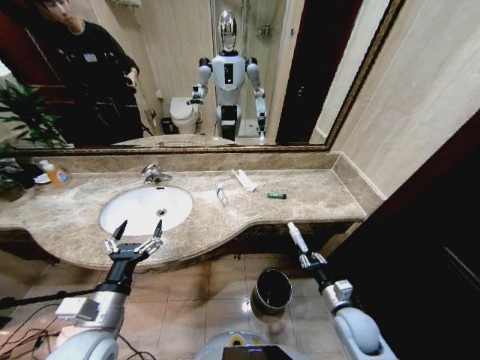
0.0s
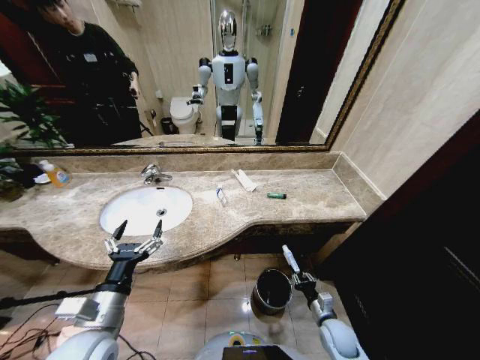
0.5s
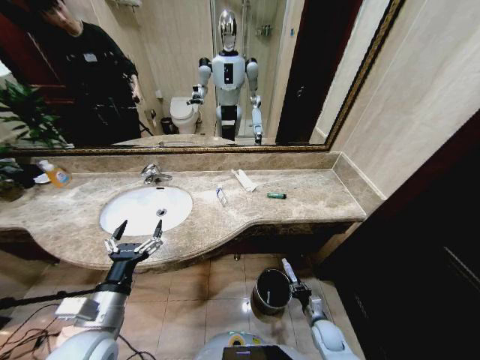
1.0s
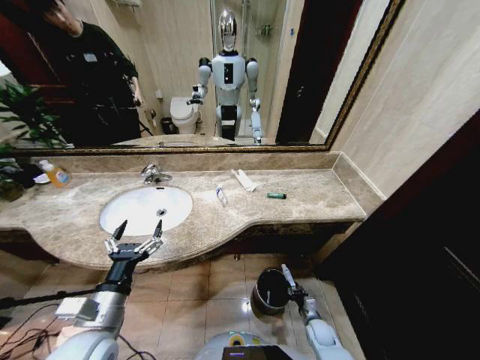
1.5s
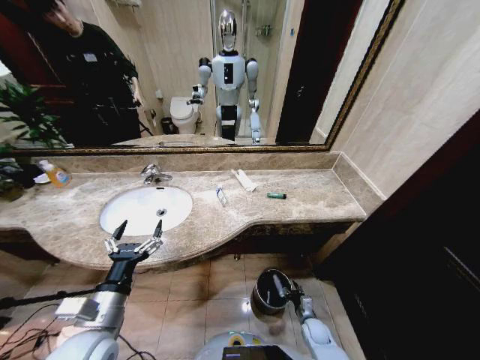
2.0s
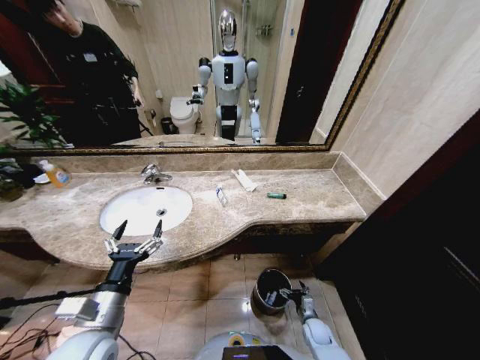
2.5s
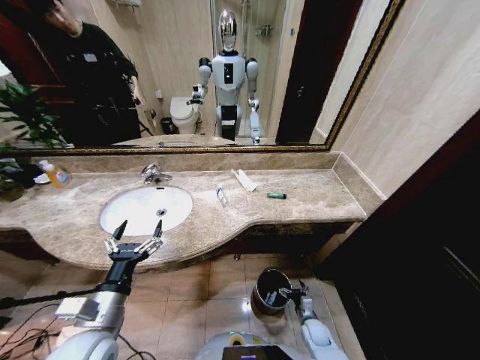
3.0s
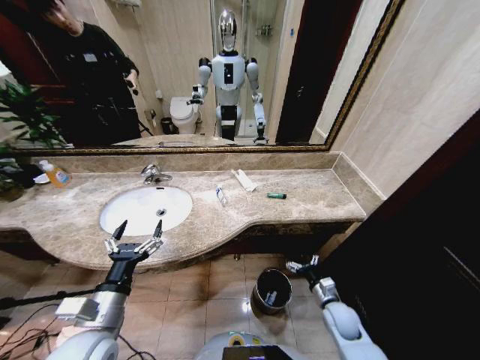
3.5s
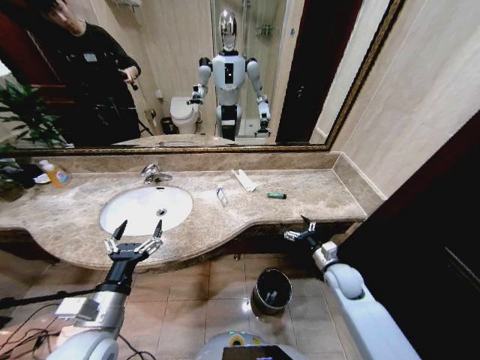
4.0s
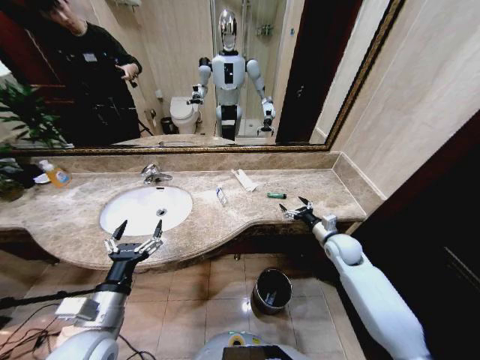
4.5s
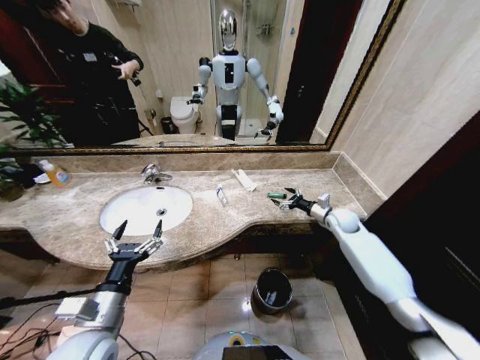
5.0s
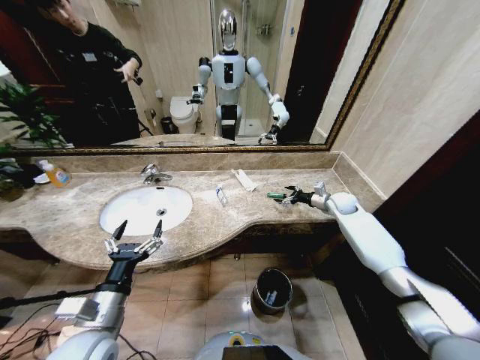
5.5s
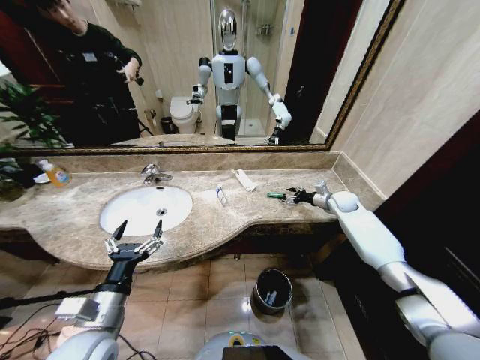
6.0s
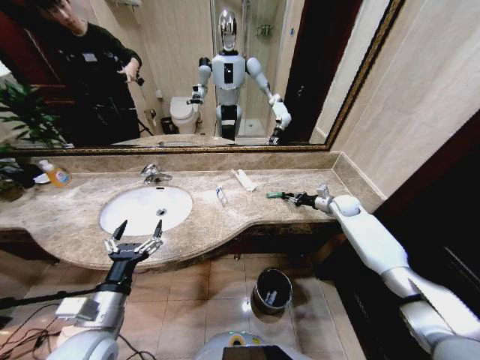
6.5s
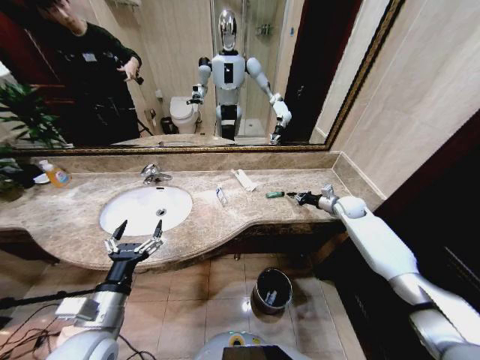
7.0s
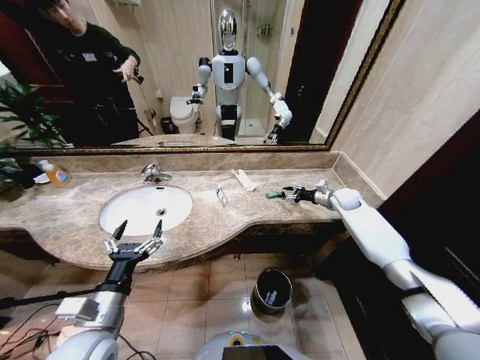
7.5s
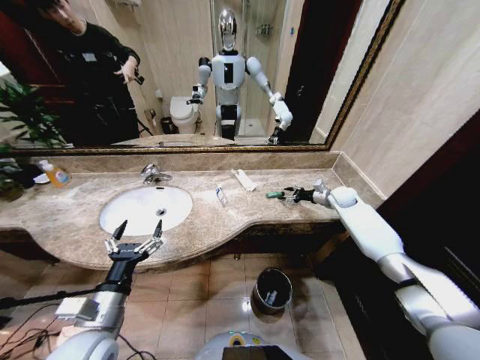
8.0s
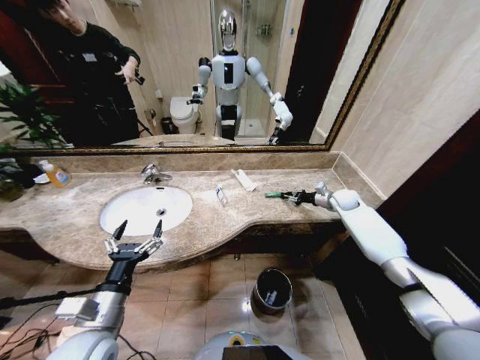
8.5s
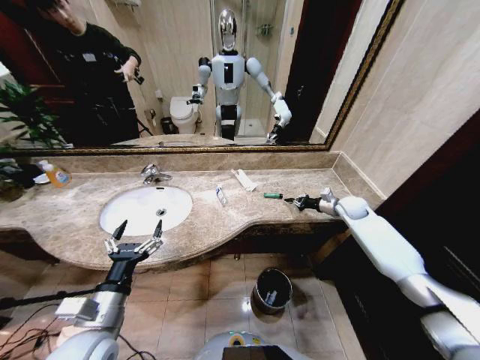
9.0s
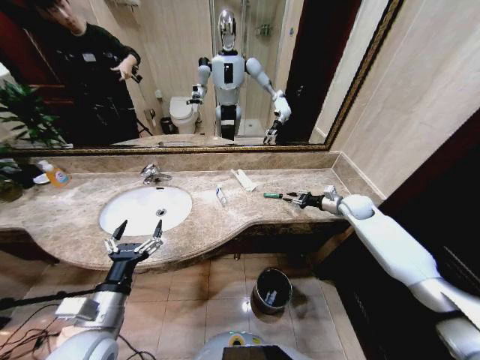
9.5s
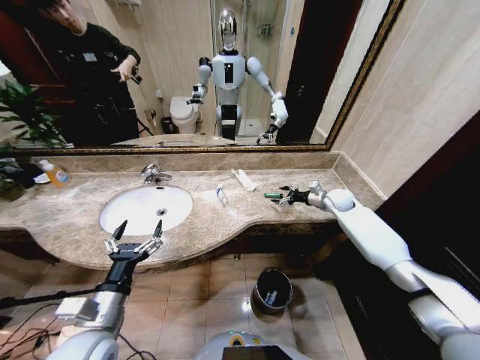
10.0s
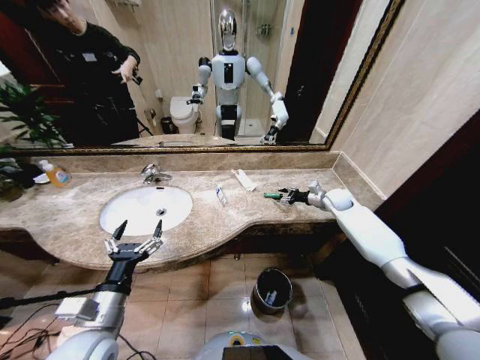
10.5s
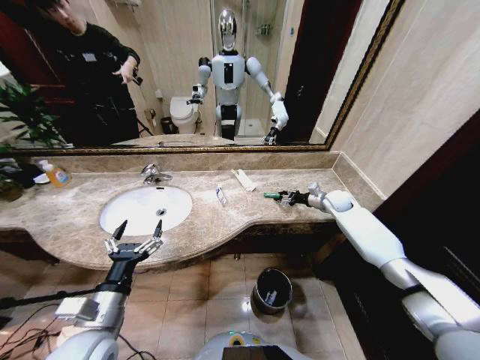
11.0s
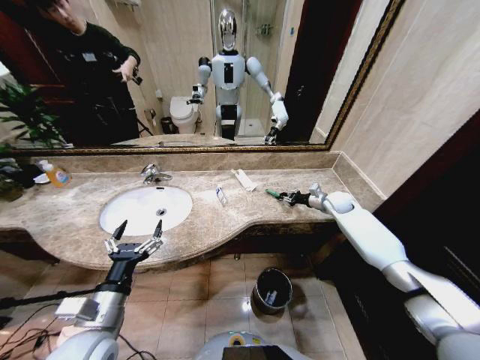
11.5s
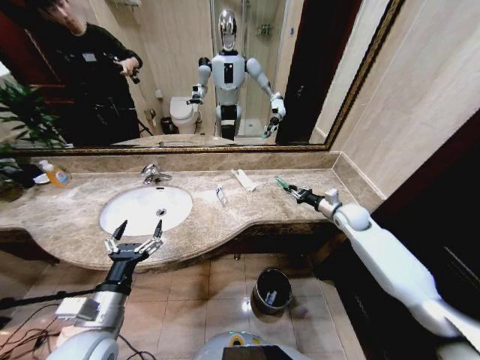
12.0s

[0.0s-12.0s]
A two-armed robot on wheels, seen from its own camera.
Task of the whole recording: Pick up the trash from the sink and place it in the trash bin.
0.0s to 2.0s: The right gripper is displaced downward by about 20 cm.
2.0s to 4.0s: The right gripper heads upward and forward, covering about 25 cm, and opens.
4.0s to 6.0s: The right gripper travels forward by some 25 cm.
6.0s to 8.0s: The right gripper closes and opens again.
8.0s to 10.0s: The right gripper closes and opens again.
10.0s to 12.0s: The right gripper shifts about 10 cm backward, and closes up.

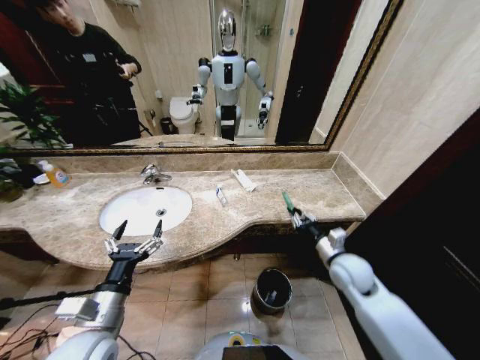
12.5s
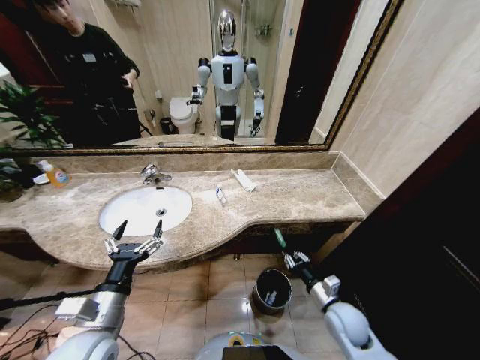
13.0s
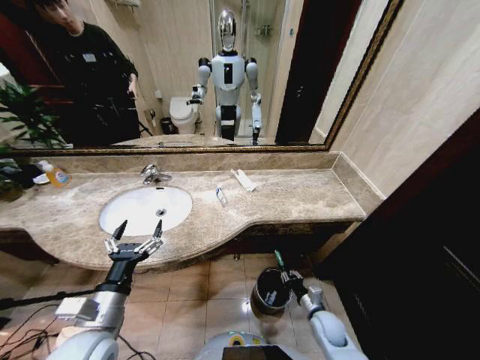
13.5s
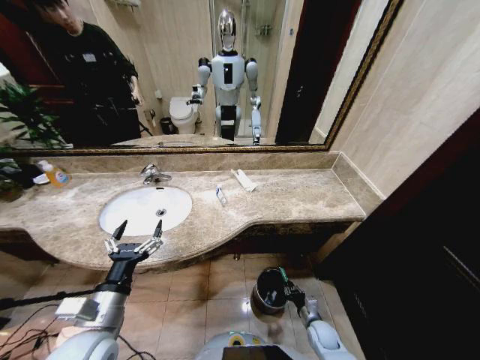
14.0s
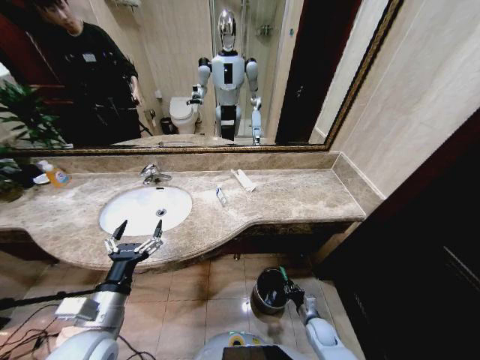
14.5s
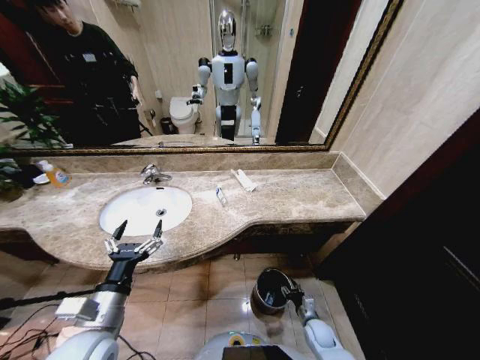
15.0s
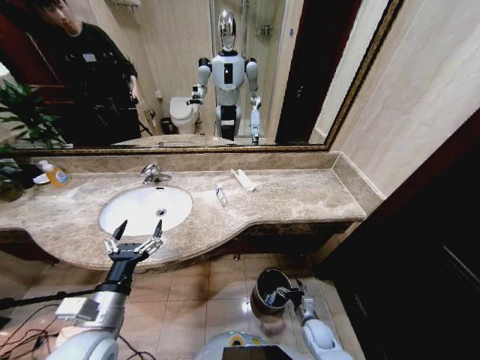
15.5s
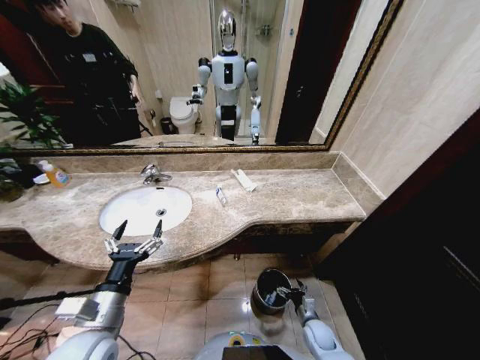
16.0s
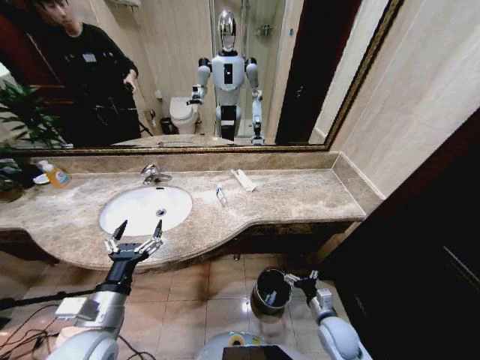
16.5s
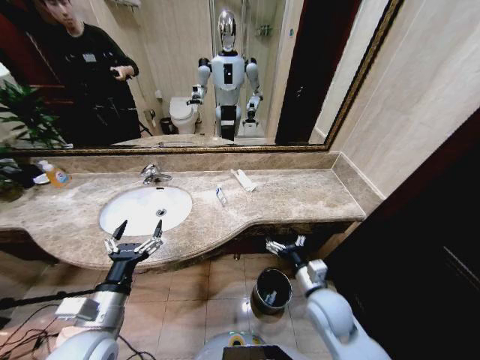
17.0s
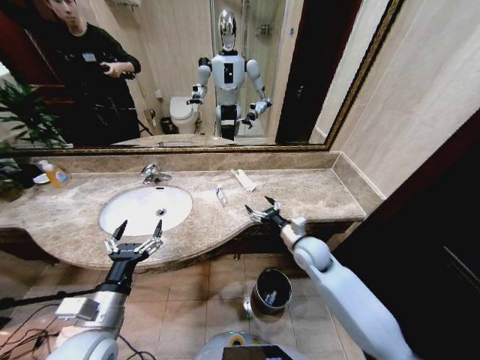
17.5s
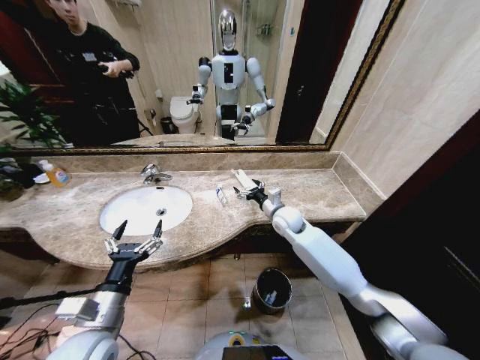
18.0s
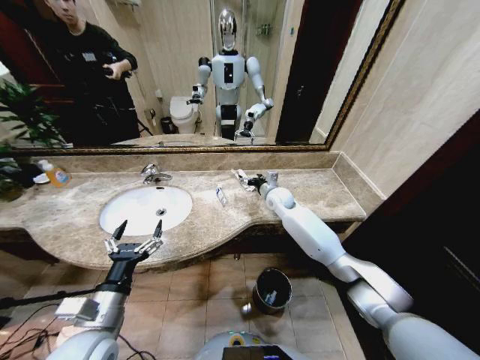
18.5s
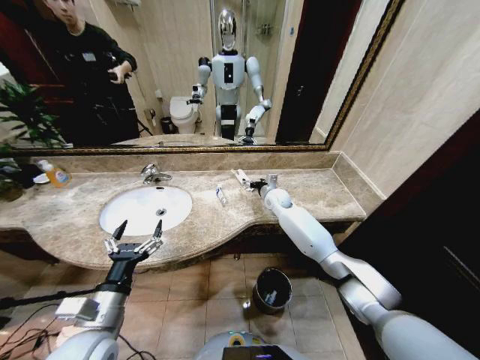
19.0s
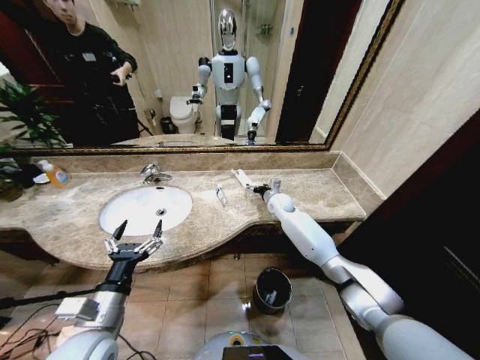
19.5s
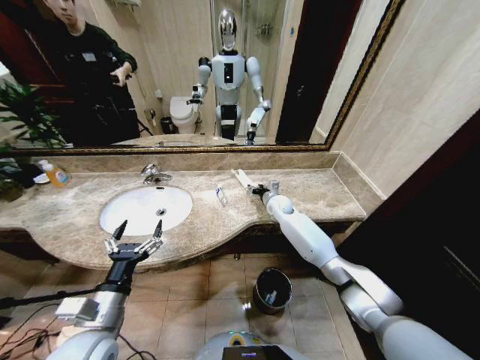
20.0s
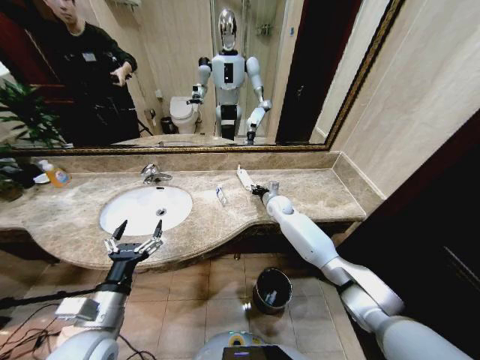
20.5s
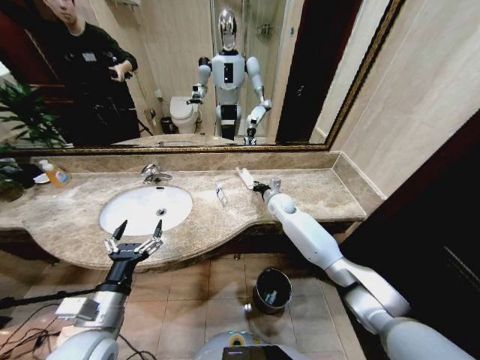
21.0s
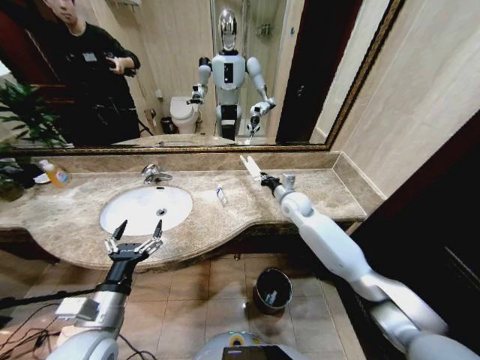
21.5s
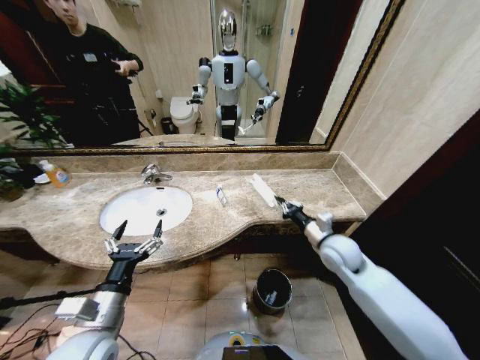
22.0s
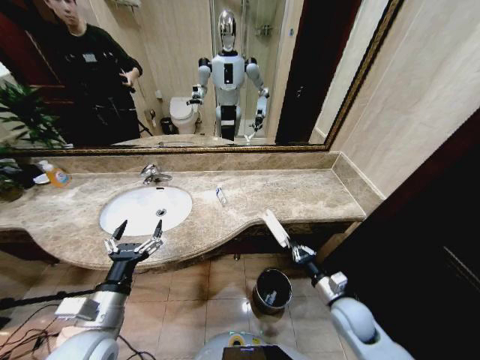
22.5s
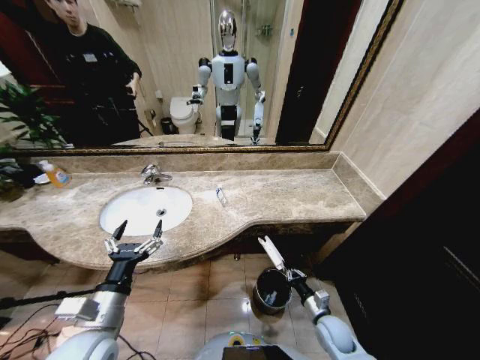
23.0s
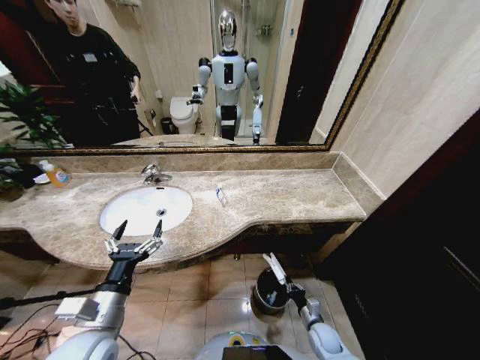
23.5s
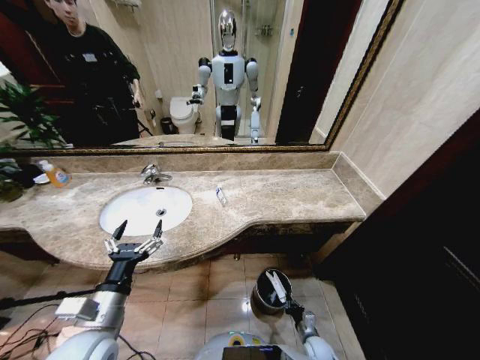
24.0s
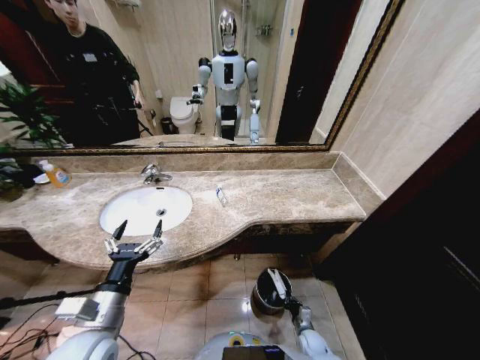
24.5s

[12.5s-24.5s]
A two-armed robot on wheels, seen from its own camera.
Task of the whole recording: Pick up the trash from the sink and place it in the trash bin.
12.5s to 14.5s: The right gripper shifts roughly 30 cm downward.
14.5s to 16.5s: The right gripper moves upward, some 15 cm, and opens.
16.5s to 18.5s: The right gripper heads forward and upward, covering about 40 cm.
18.5s to 20.5s: The right gripper is displaced downward by approximately 5 cm, and closes.
20.5s to 22.5s: The right gripper travels backward by approximately 35 cm.
22.5s to 24.5s: The right gripper travels downward by about 25 cm.

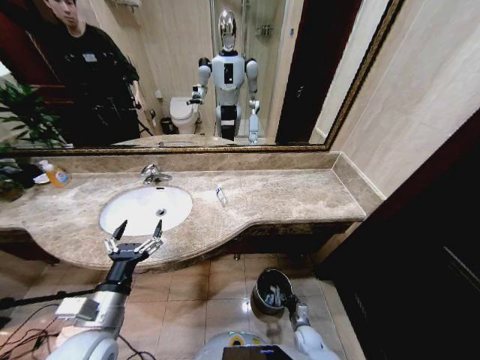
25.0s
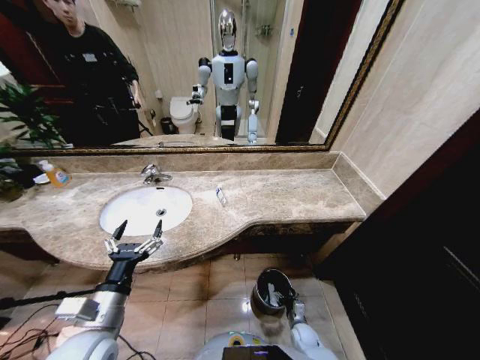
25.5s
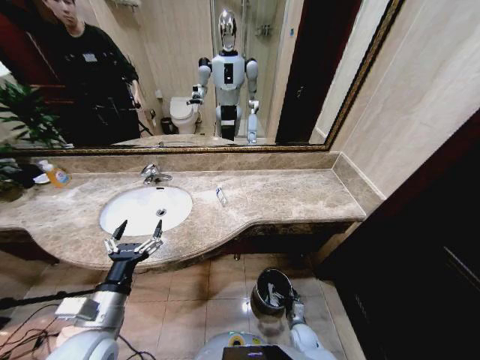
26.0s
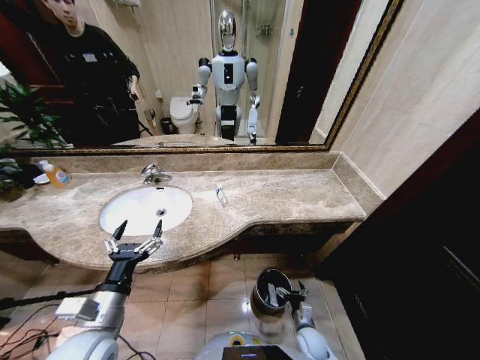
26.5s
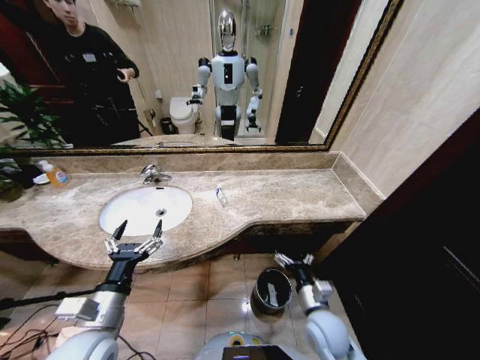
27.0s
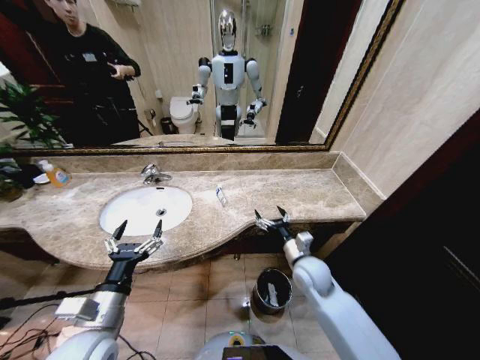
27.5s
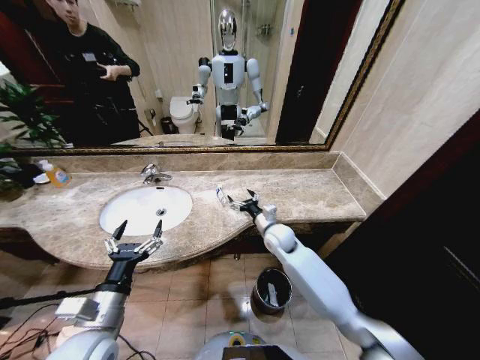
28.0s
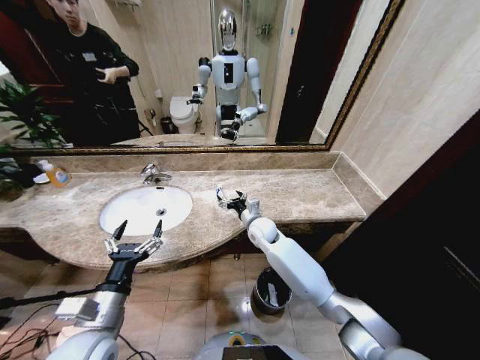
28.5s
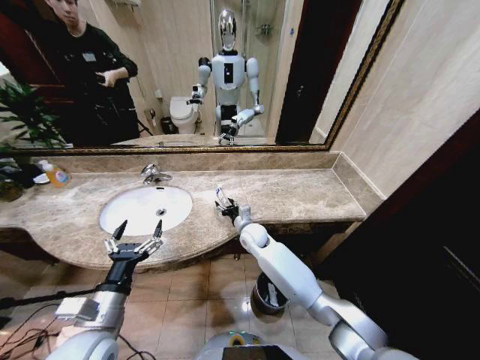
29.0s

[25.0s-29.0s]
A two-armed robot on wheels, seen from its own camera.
Task of the whole recording: Pick up the trash from the sink and place it in the trash bin.
25.0s to 27.0s: The right gripper travels upward by about 25 cm, and opens up.
27.0s to 29.0s: The right gripper shifts about 30 cm forward and to the left.
